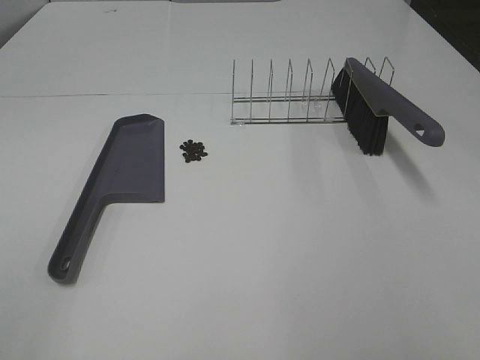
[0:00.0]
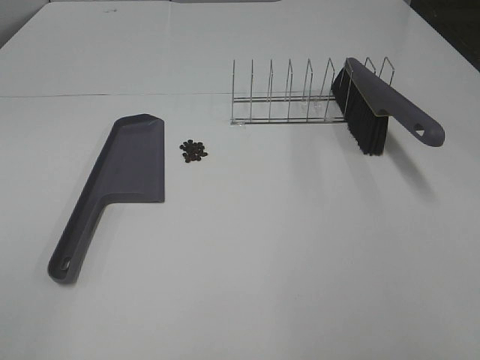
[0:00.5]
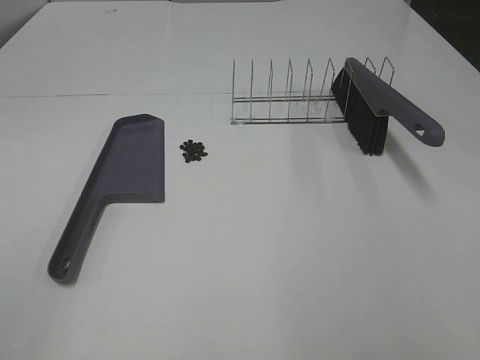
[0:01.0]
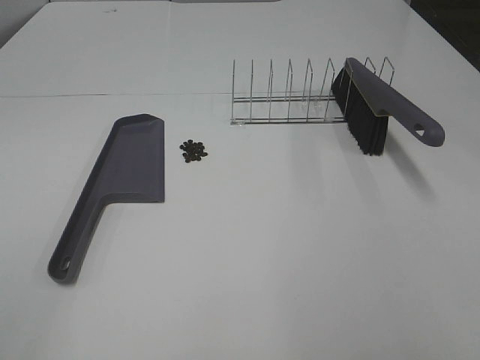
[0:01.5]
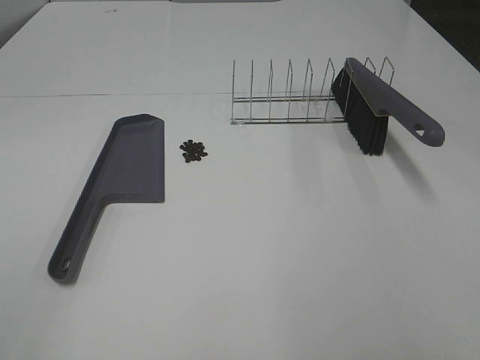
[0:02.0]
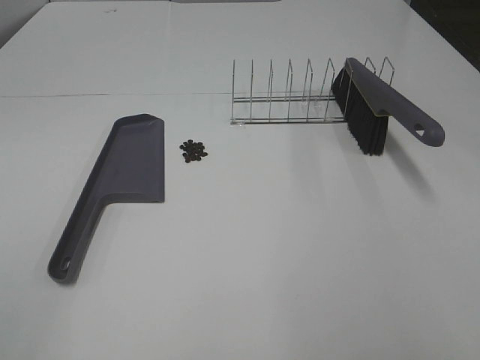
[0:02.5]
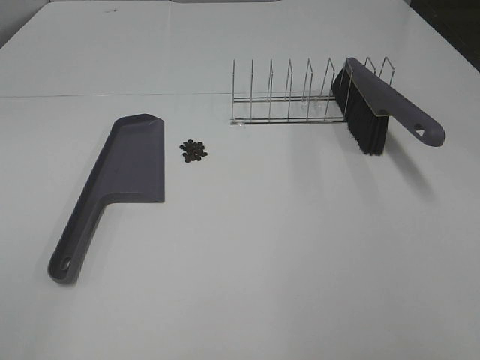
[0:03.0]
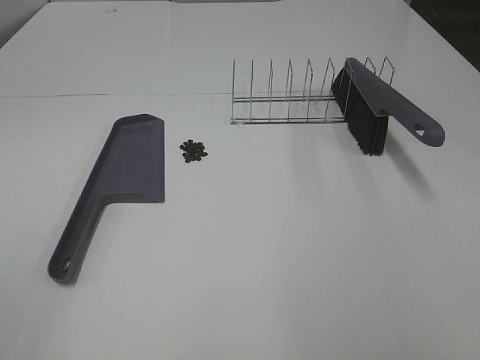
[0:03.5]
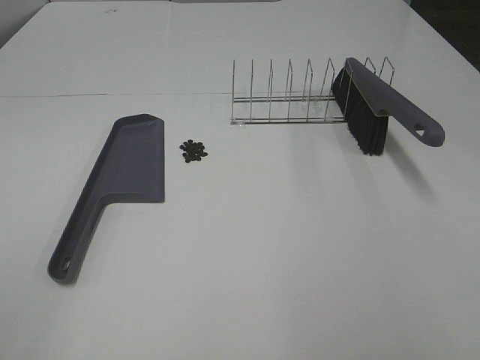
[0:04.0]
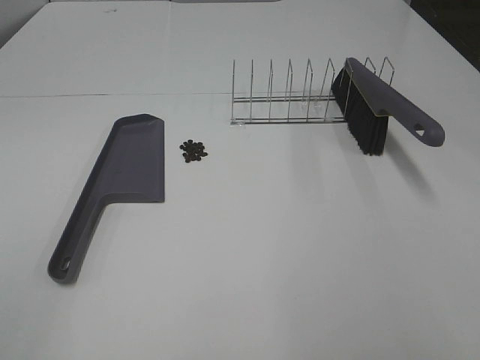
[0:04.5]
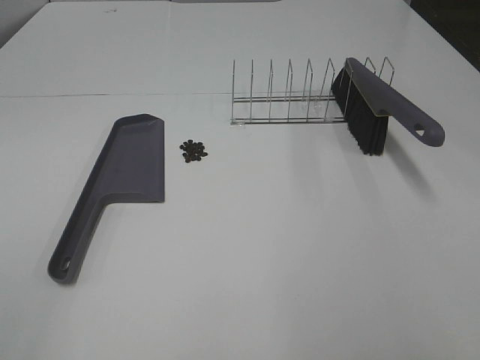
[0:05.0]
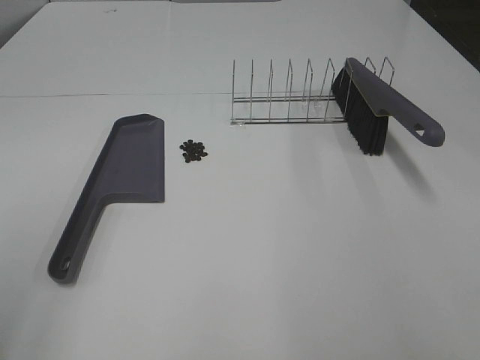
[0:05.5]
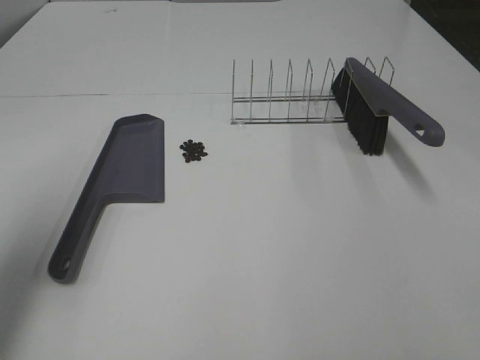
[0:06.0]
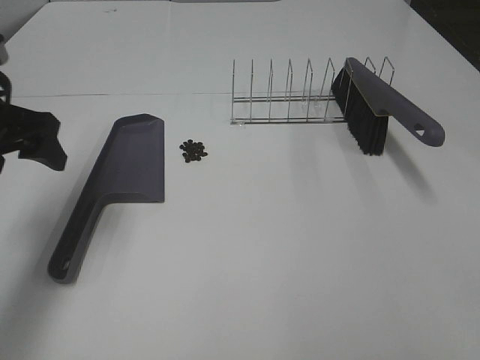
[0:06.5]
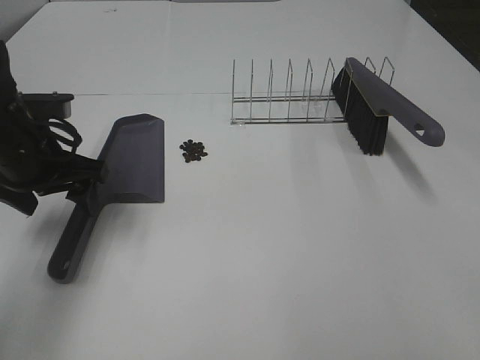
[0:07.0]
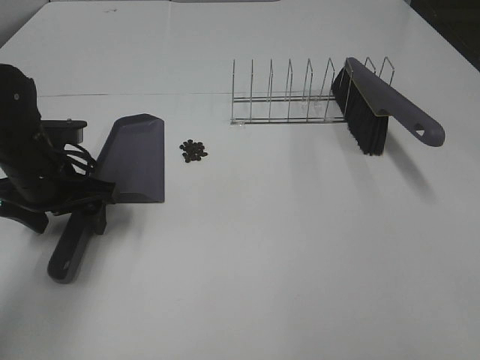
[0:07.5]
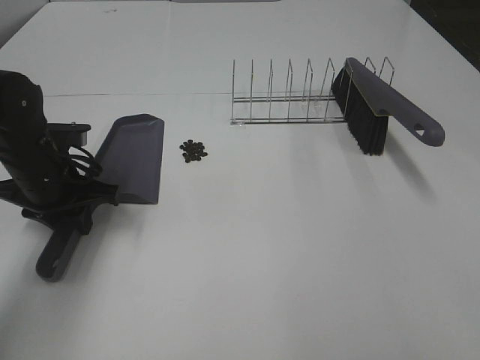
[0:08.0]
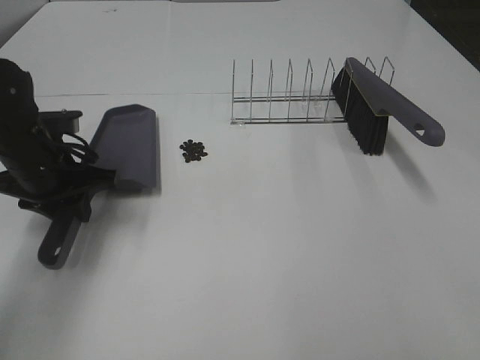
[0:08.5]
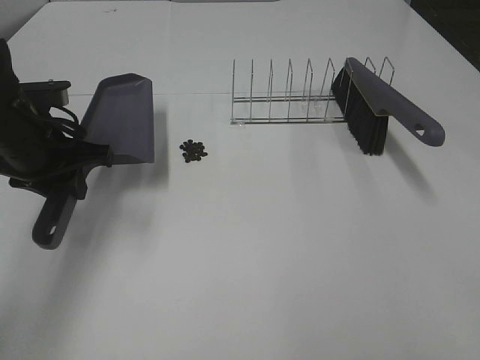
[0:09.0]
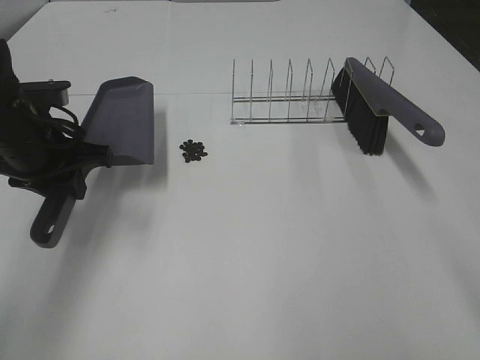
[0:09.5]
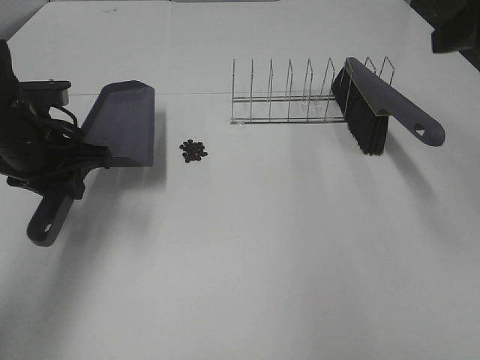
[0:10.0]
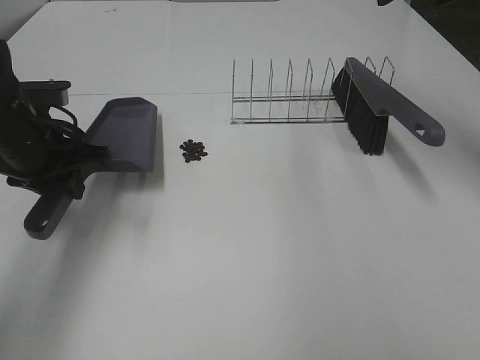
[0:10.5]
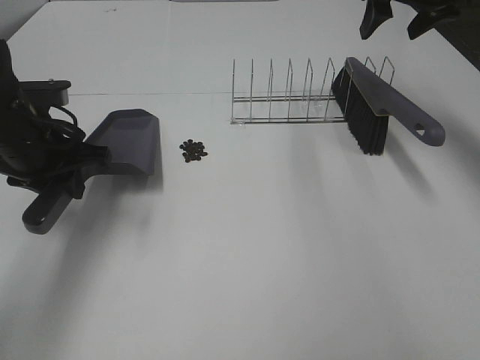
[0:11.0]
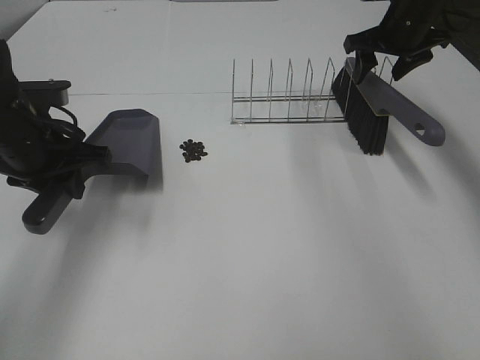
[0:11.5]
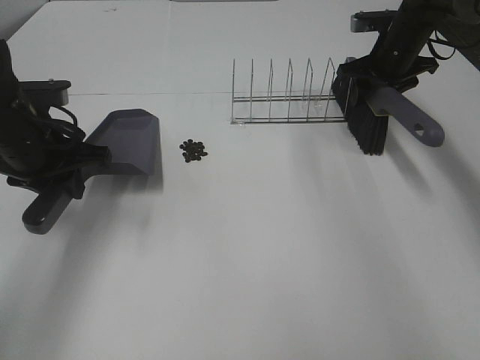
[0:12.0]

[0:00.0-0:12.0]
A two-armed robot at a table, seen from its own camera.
Task of the whole recording: Sweep Coffee Bean.
Step, 0:00.0 to 0:08.0: Left hand: grab the dustpan.
0:00.0 to 0:04.0: The two grippers keep their place.
0:04.0 to 0:06.0: The left gripper goes about 20 cm forward.
0:06.0 to 0:08.0: The left gripper goes some 25 cm downward, forward and to the right, and closes up.
0:08.0 to 0:10.0: The left gripper travels upward by approximately 5 cm.
0:10.0 to 0:12.0: The right gripper shifts approximately 35 cm forward and downward, and closes its fingers.

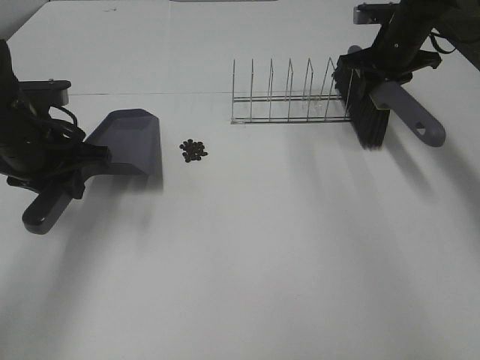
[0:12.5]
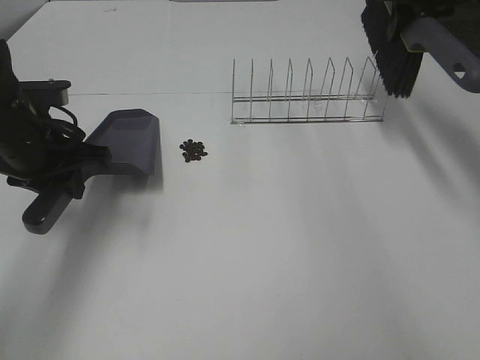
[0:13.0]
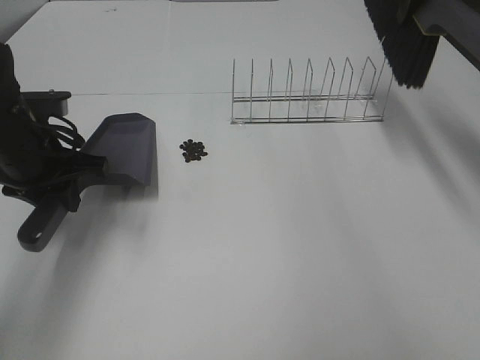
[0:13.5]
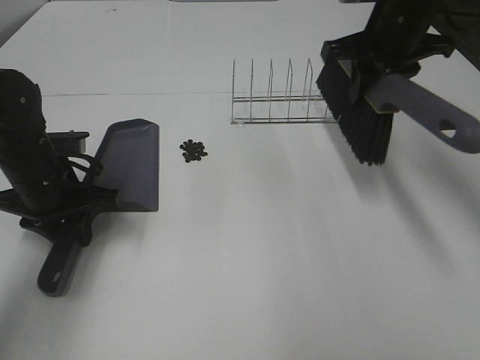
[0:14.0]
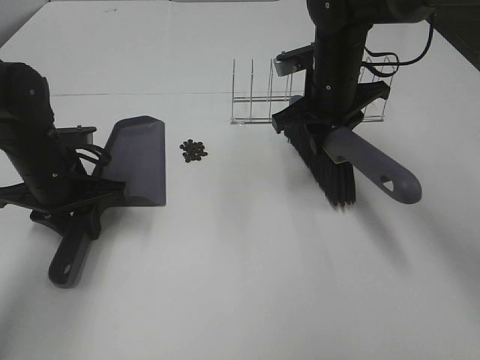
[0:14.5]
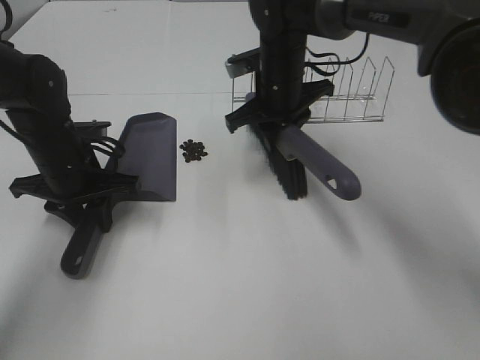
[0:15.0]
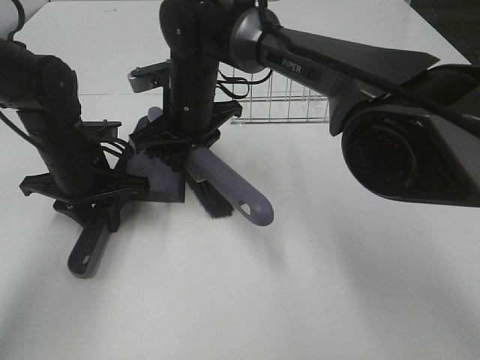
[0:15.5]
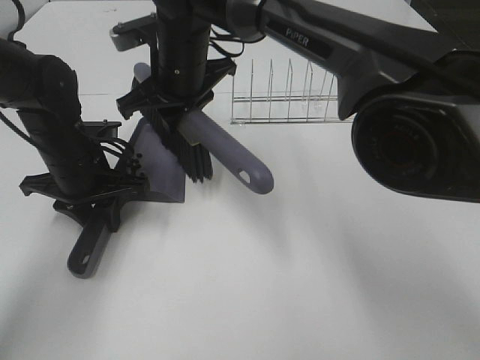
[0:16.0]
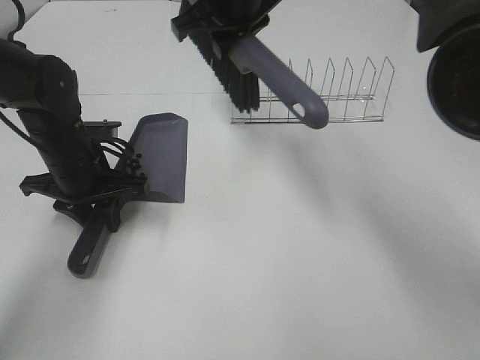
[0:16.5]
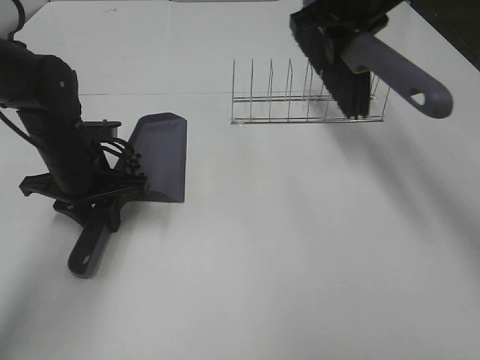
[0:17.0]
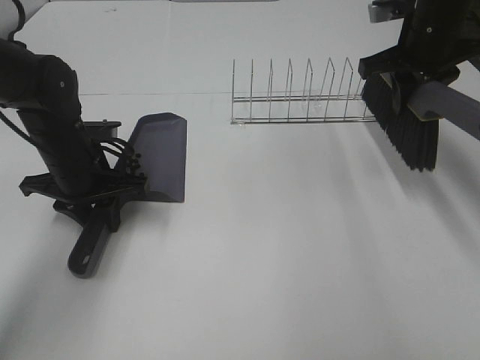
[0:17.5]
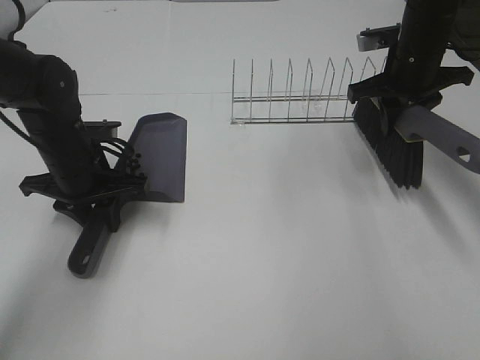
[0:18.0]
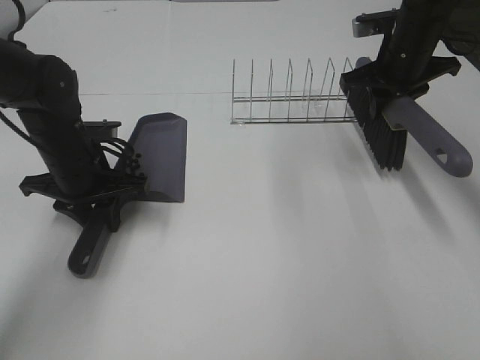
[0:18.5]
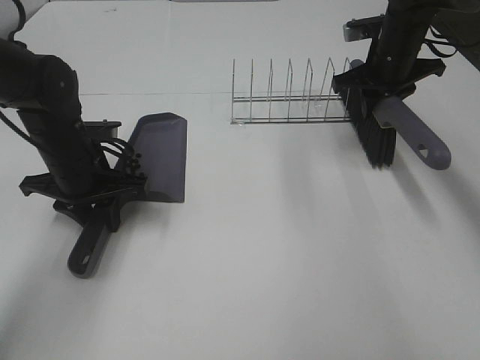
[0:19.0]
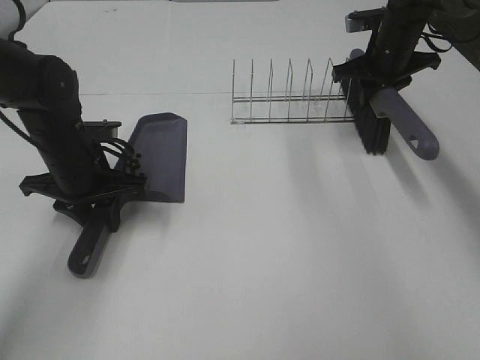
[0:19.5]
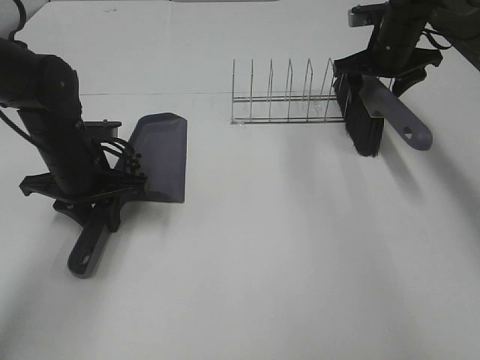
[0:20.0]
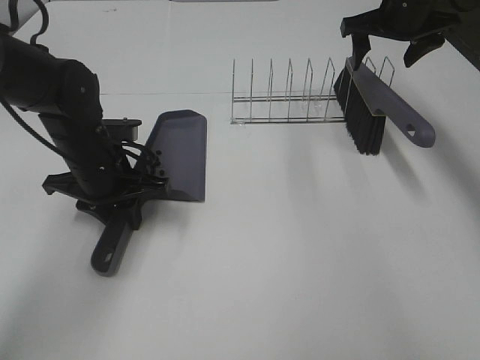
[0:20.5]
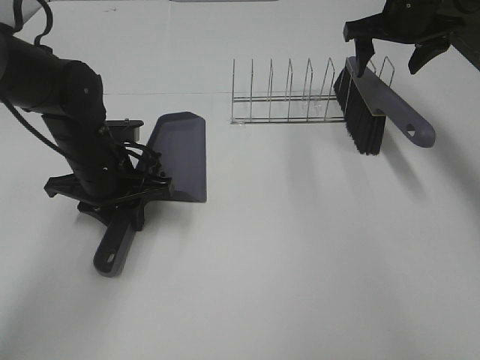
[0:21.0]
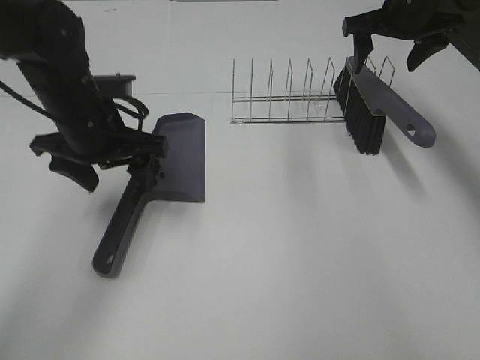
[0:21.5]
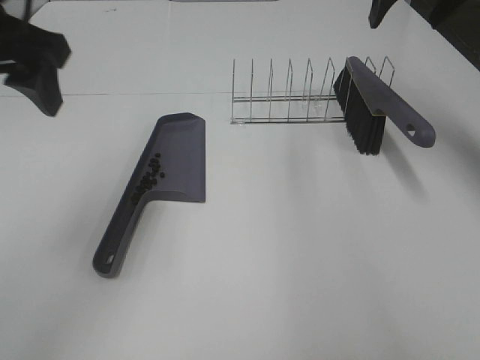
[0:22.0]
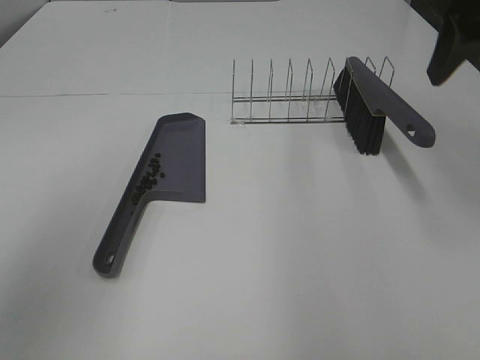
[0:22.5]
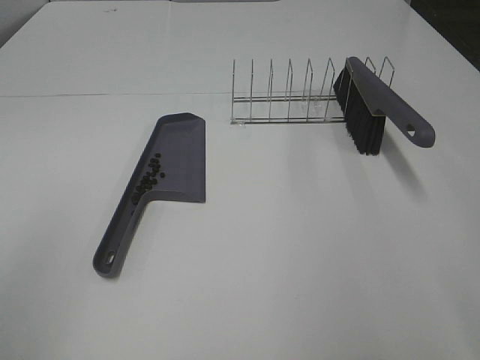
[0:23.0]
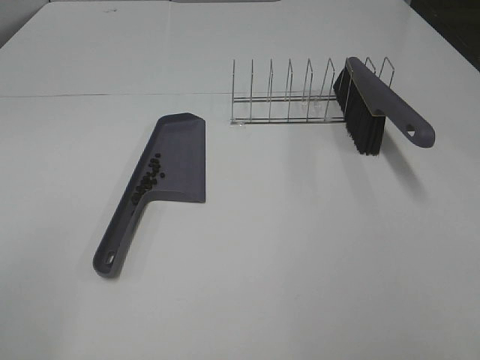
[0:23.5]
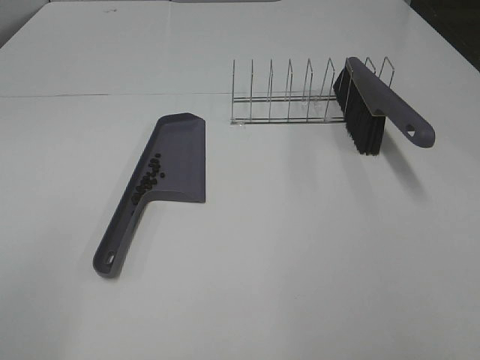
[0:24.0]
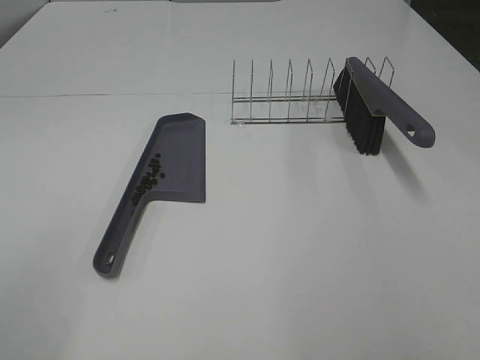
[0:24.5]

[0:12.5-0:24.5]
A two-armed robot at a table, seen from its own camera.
Task of the whole recording: Sweep Coffee Bean.
Step, 0:12.5 to 0:15.0: Left hand: move the dustpan to the left side of the coffee beans.
Step, 0:12.5 to 0:16.0: Right hand:sweep the coffee beans into the dustpan.
Step, 0:16.5 to 0:20.0: Right hand:place the broom on the rack.
Step, 0:20.5 to 0:21.0: Left hand:place the dustpan on the table.
0:12.5 to 0:14.5: The left gripper goes approximately 5 cm downward. Meanwhile the right gripper travels to the left and backward by about 15 cm, and goes upward and returns, roughly 15 cm each way.
0:14.5 to 0:16.5: The right gripper is displaced upward and to the left by roughly 15 cm.
0:16.5 to 0:18.5: The right gripper is displaced to the right and downward by about 25 cm.
0:18.5 to 0:20.5: The right gripper moves roughly 5 cm, and opens up.
0:20.5 to 0:22.5: The left gripper travels upward and backward by approximately 35 cm, and opens up. Meanwhile the right gripper travels backward and upward by roughly 25 cm.
0:22.5 to 0:24.5: The left gripper moves backward and downward, about 15 cm. The right gripper travels backward by approximately 30 cm.

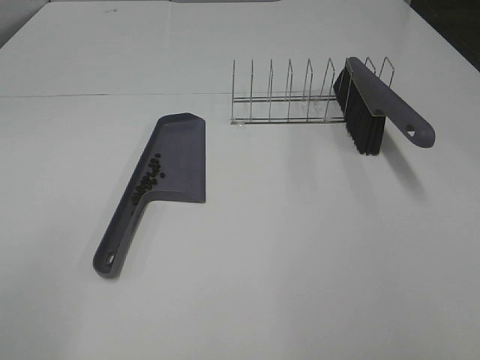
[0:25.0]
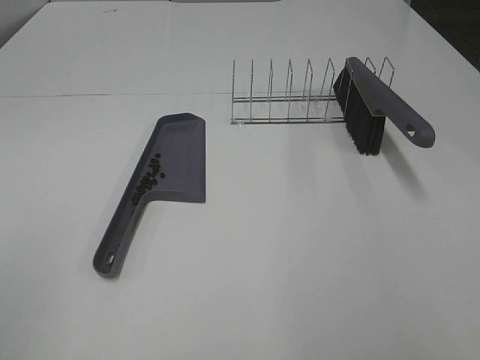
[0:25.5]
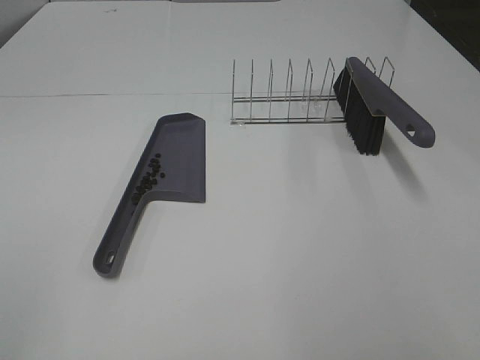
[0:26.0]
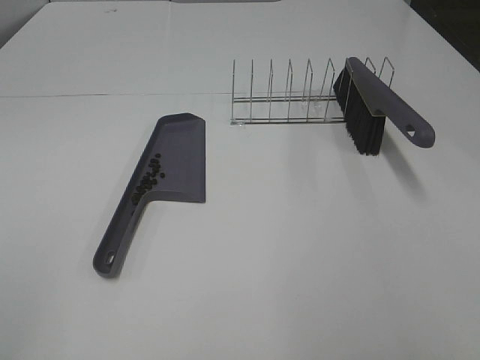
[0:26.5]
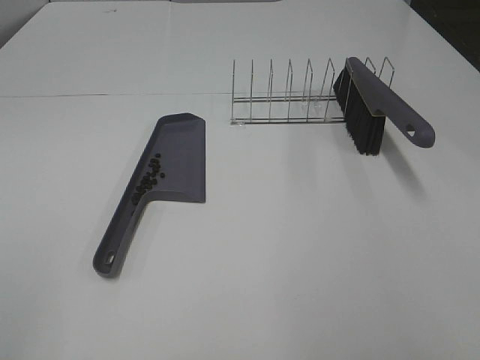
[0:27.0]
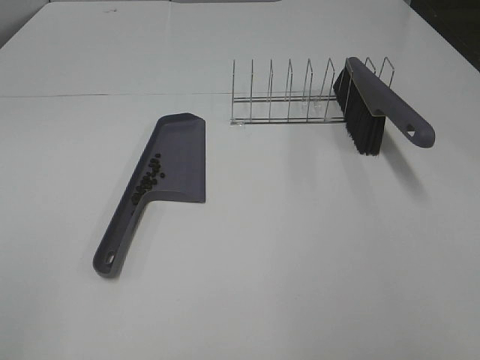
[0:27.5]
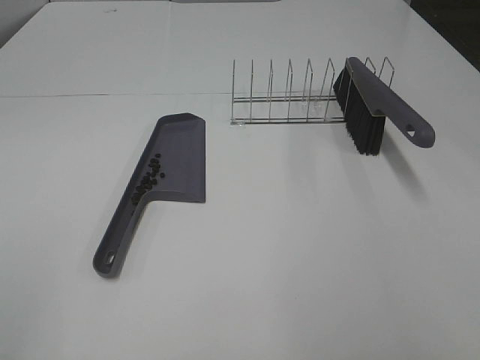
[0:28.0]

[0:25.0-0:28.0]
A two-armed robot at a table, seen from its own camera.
Task of the whole recording: Sweep Coffee Bean.
0:26.5 to 0:28.0: Both grippers stay about where they are.
